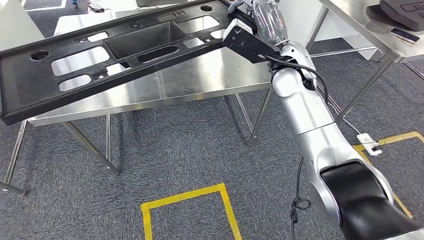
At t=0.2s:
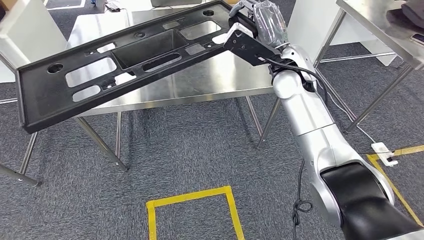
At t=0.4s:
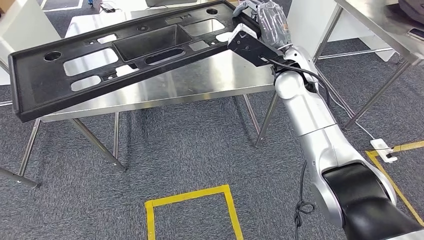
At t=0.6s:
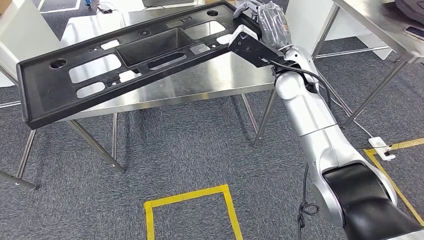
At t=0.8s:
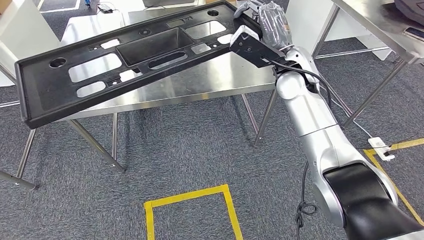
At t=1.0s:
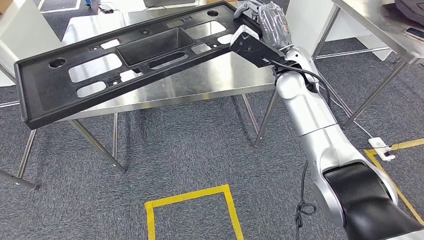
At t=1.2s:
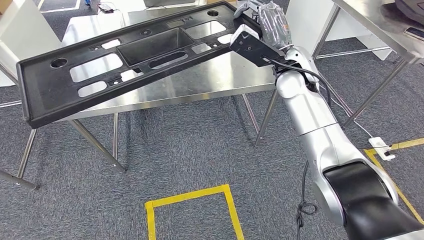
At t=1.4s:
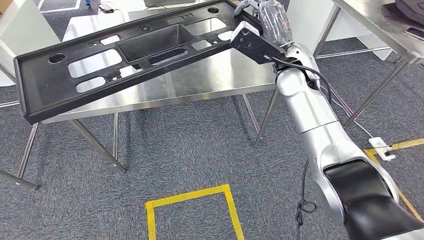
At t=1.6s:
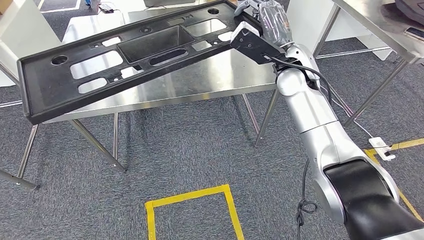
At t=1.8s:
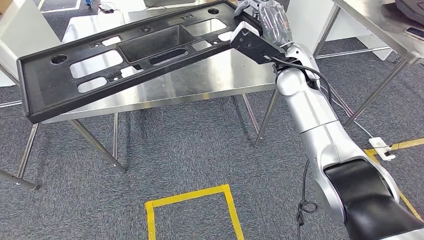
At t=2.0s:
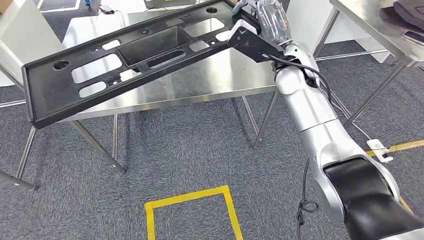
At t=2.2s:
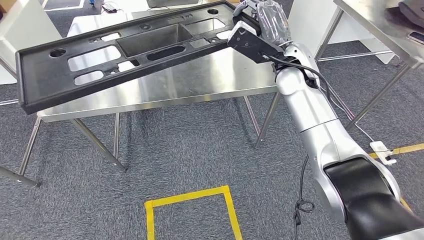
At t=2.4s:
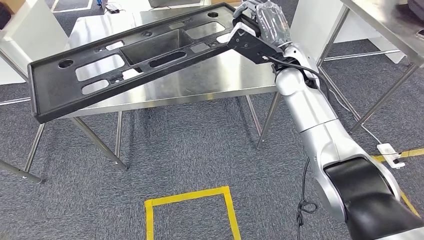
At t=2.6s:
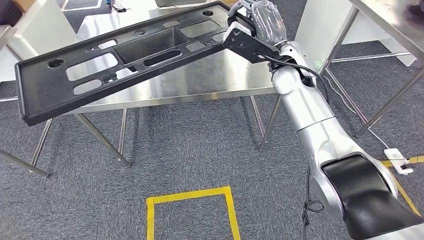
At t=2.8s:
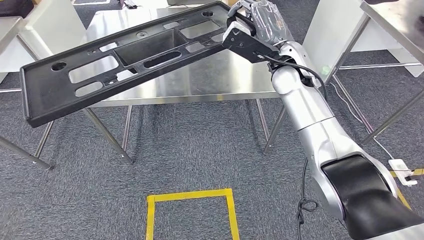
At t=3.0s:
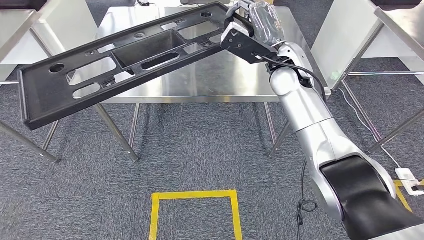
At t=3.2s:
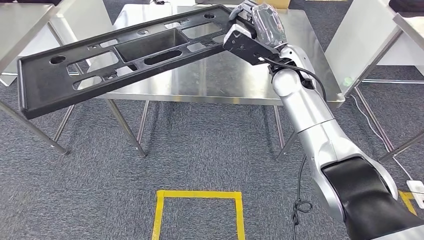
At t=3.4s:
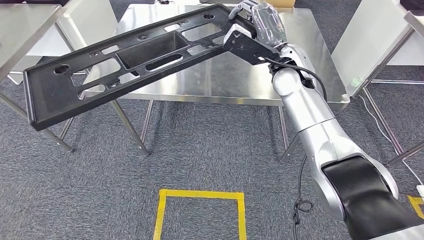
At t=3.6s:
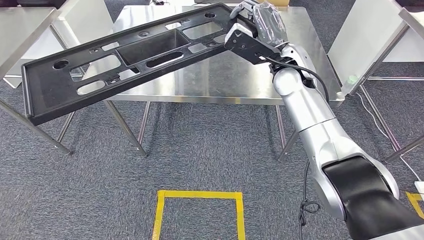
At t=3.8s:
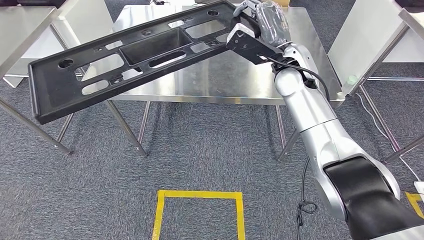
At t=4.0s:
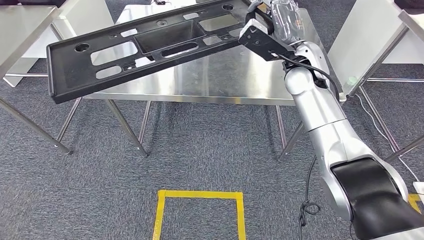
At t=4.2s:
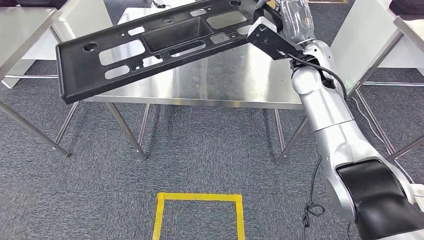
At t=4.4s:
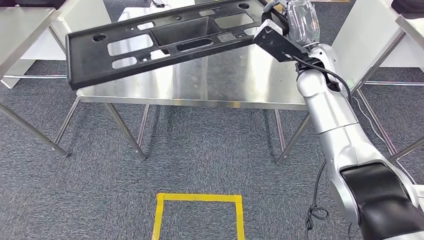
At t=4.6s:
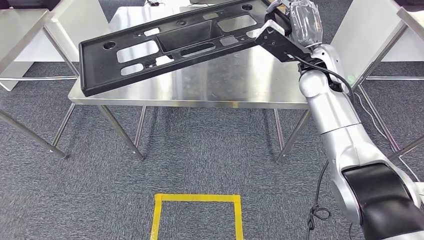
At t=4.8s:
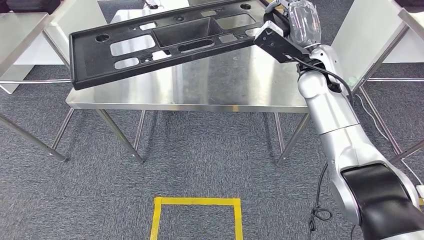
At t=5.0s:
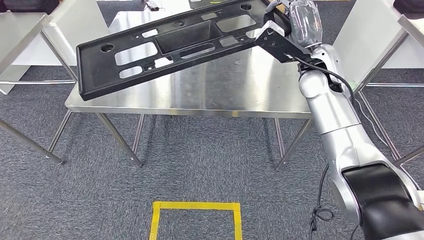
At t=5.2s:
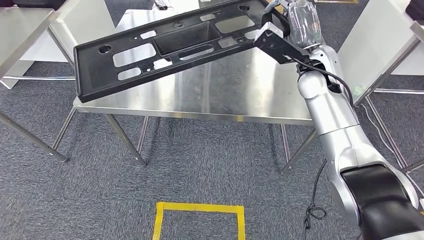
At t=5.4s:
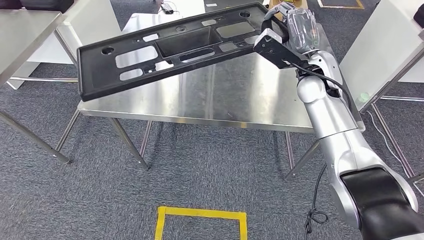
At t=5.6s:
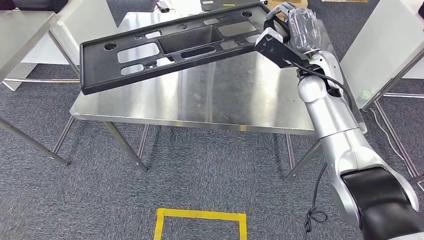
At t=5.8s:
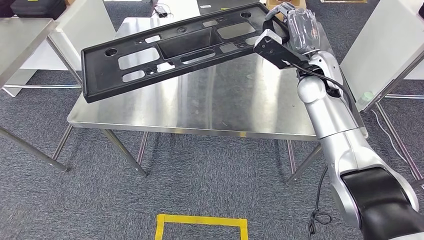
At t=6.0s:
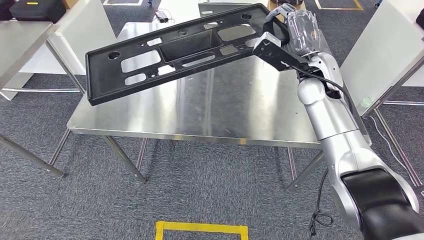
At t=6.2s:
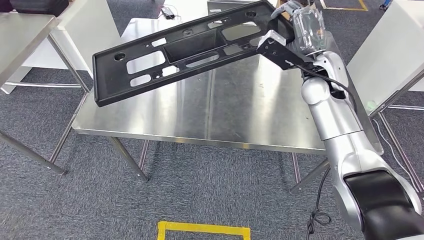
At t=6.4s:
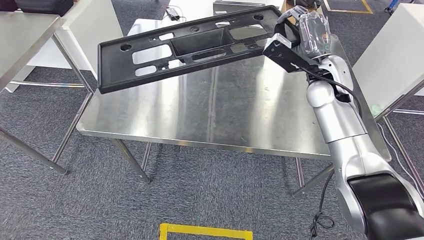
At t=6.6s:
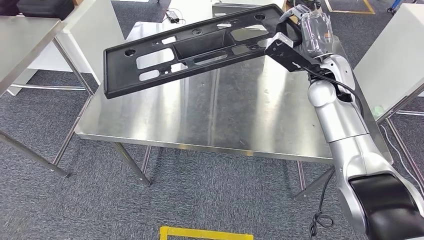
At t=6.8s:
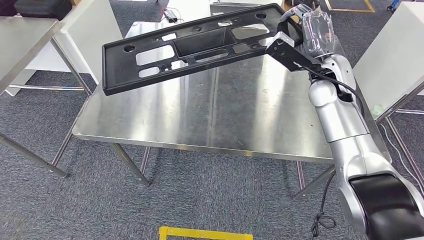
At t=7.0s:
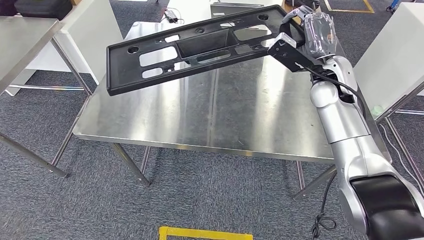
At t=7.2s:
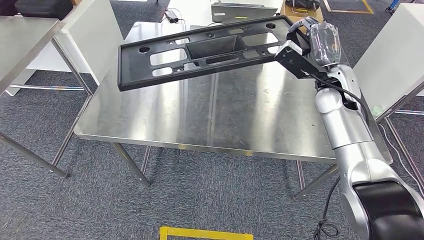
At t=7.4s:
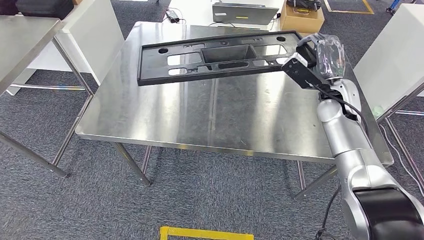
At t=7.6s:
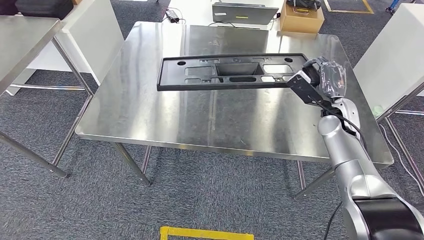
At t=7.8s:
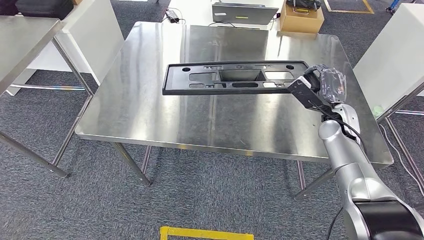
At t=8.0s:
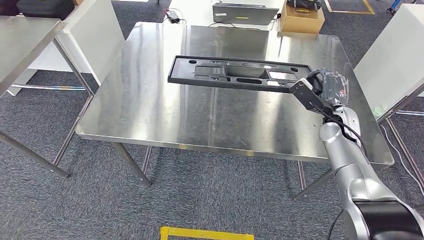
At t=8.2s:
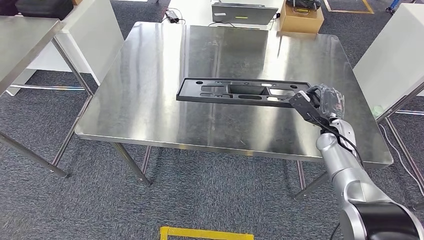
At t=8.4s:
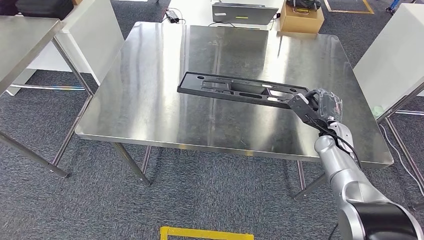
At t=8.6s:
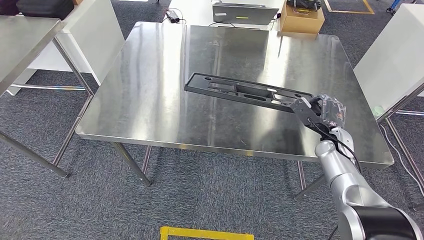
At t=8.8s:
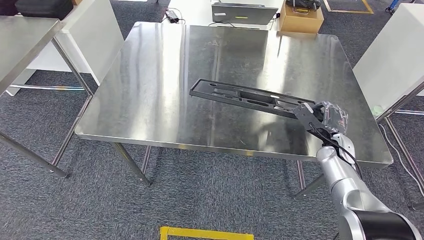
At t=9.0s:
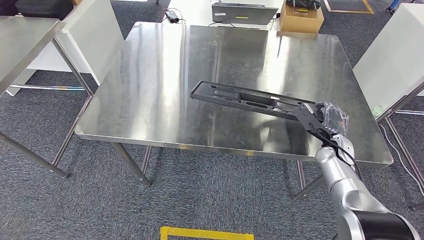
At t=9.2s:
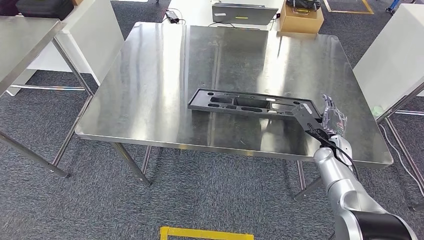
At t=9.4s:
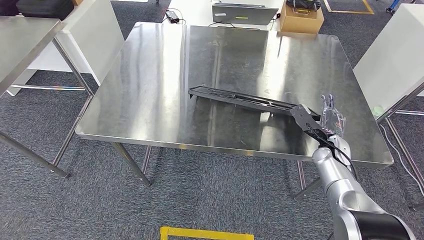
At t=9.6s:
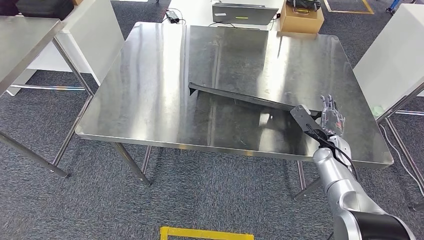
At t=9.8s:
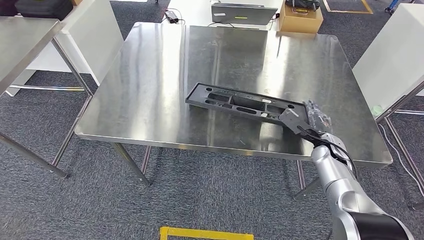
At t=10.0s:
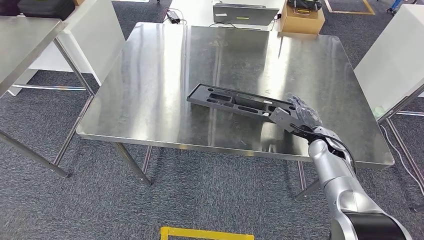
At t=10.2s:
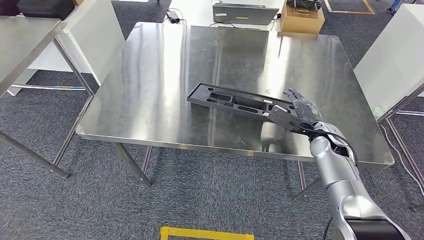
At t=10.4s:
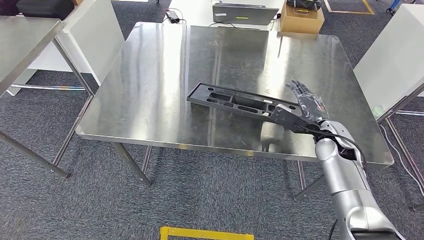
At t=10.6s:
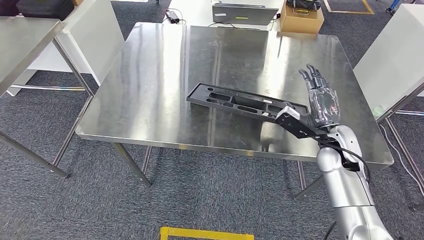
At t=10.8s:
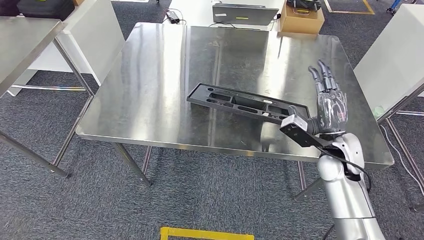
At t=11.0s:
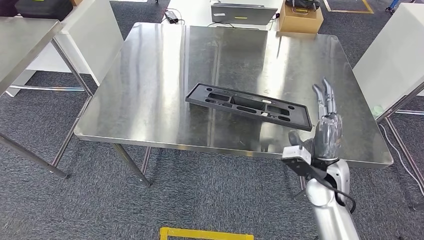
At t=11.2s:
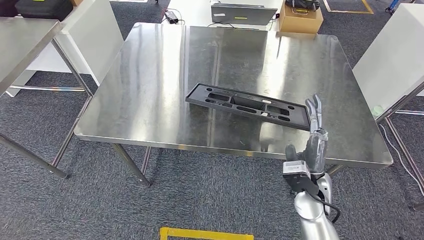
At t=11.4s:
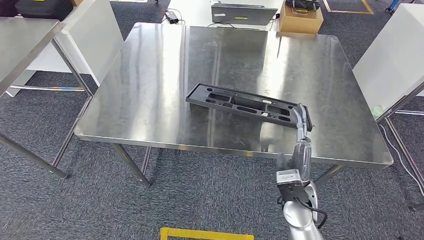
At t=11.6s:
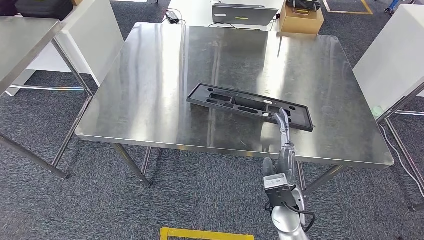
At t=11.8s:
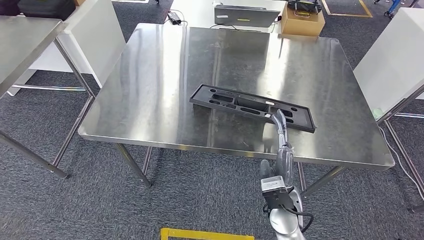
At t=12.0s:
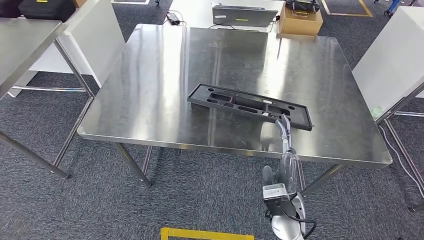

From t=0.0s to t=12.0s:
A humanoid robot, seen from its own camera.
From t=7.6s to t=9.0s: The right hand moves downward, some 10 cm.
From t=9.0s to t=10.4s: The right hand travels upward by some 5 cm.
From t=10.4s to t=12.0s: The right hand travels to the left and backward by about 20 cm.

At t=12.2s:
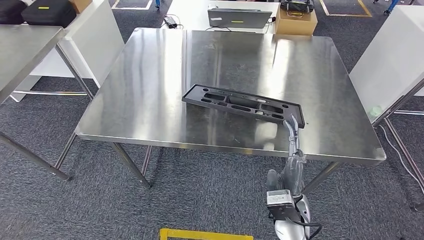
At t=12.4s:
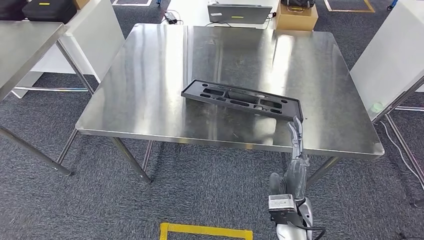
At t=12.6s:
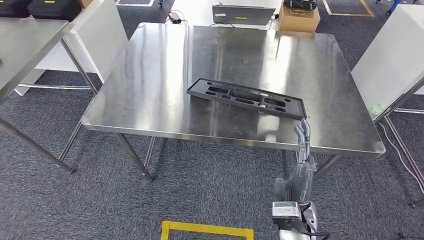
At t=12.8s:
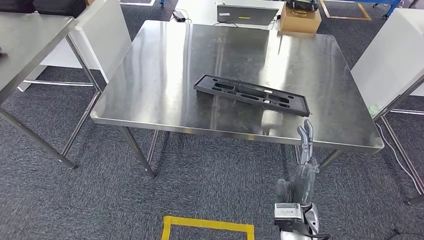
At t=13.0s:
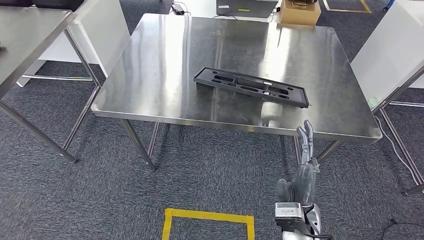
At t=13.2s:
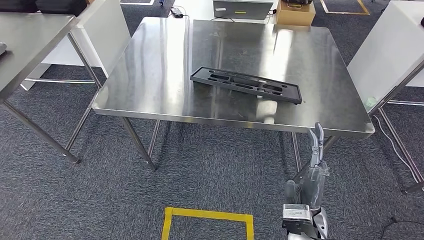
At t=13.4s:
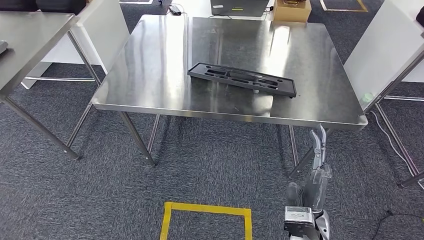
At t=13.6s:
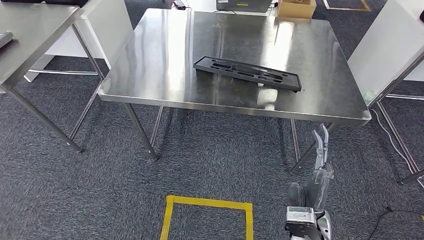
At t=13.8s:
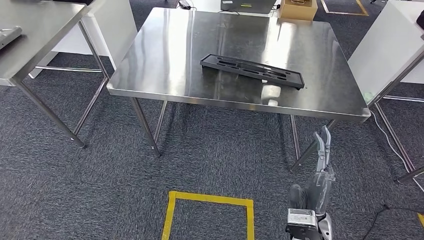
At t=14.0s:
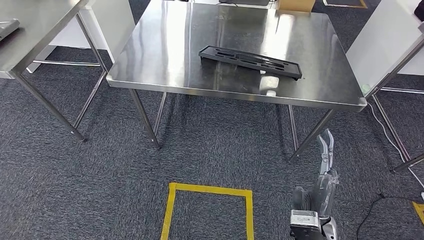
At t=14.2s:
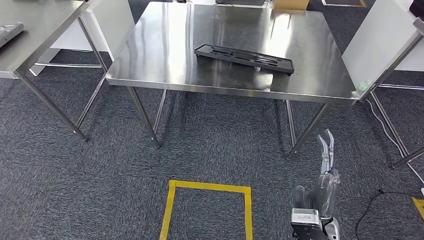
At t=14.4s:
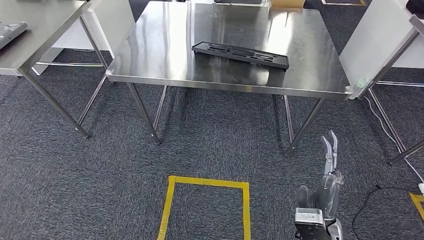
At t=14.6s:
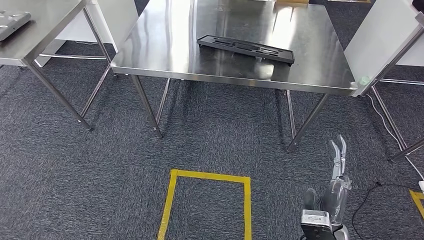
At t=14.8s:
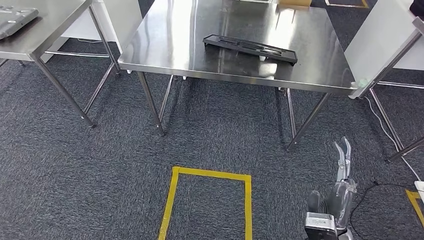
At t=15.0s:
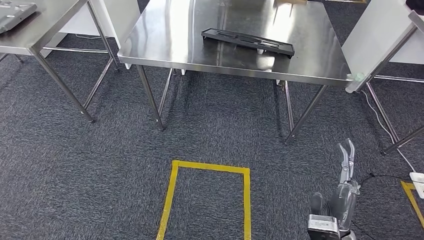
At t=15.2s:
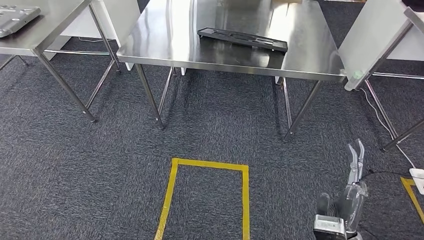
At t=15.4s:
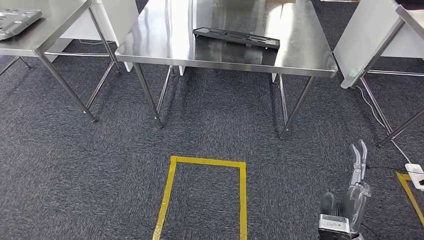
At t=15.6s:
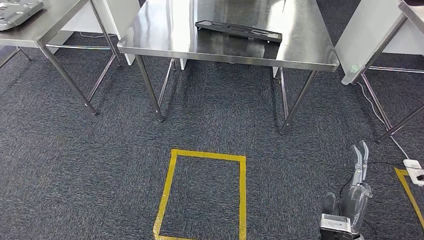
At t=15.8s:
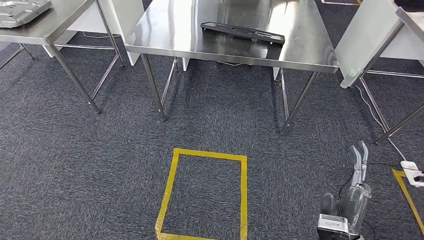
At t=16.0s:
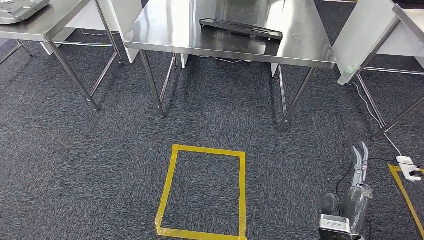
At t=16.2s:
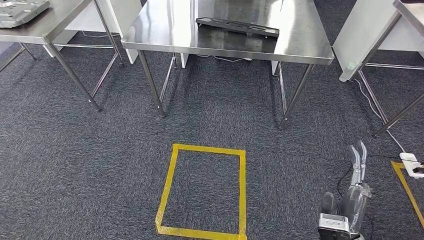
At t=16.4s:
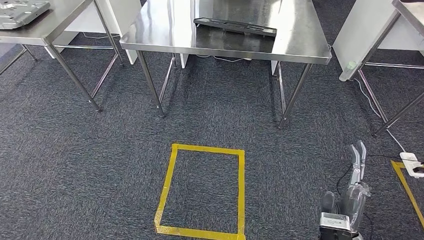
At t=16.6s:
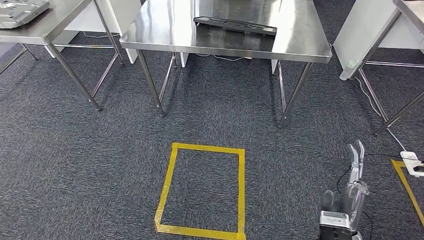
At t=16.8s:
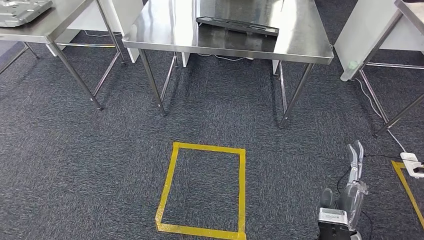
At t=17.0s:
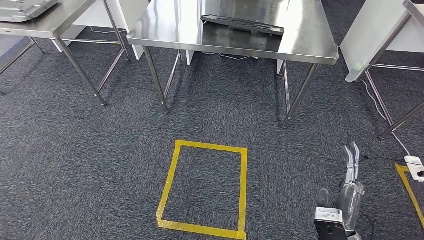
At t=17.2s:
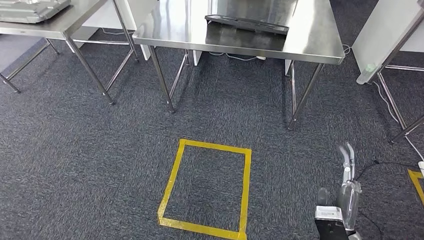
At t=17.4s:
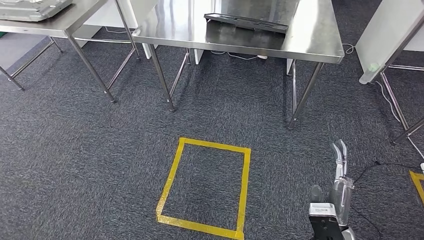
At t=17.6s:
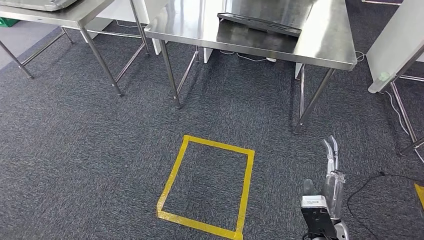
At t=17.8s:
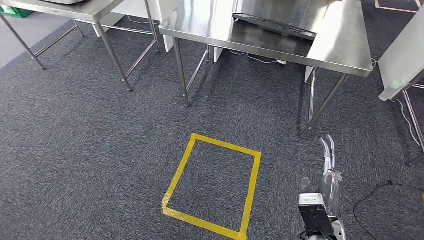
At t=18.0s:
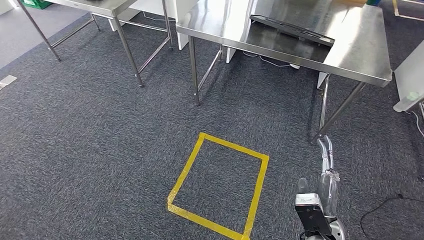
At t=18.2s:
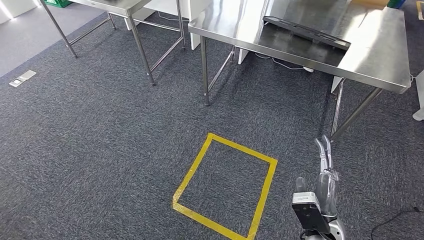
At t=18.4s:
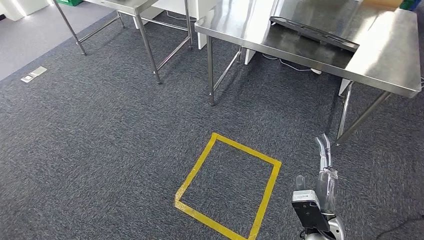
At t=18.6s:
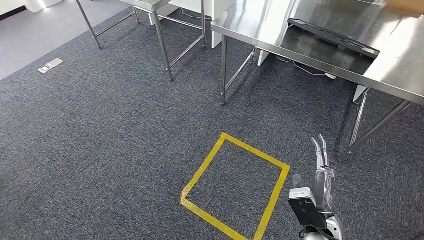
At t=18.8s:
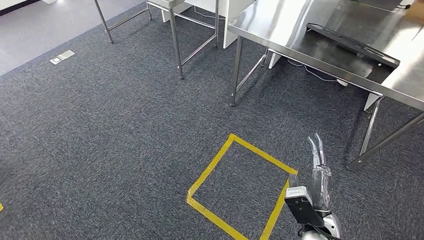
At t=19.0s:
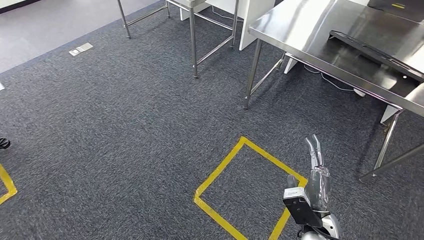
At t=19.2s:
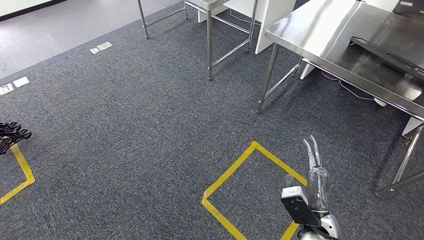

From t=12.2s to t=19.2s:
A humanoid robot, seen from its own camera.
Step, from t=12.2s to t=15.0s: Insert the large material into the corresponding slot on the workbench.
